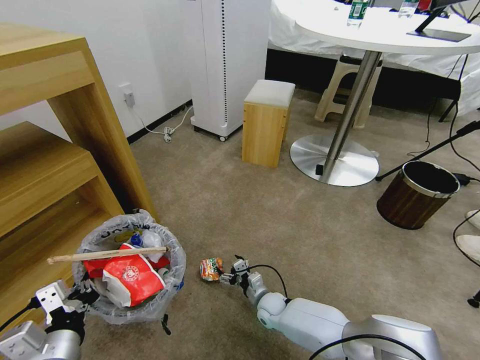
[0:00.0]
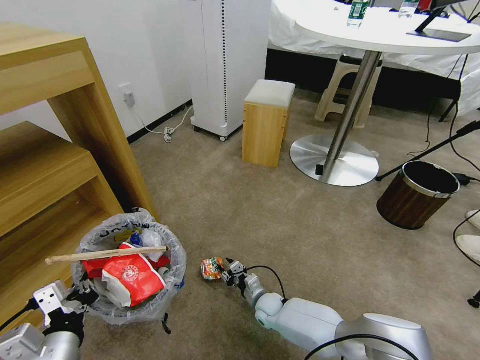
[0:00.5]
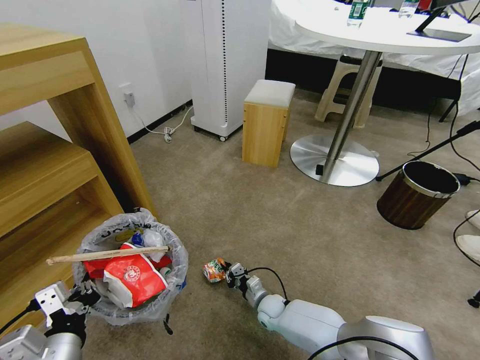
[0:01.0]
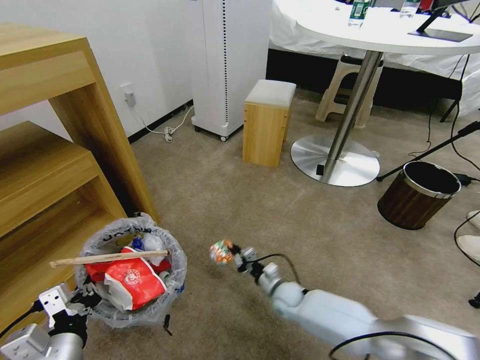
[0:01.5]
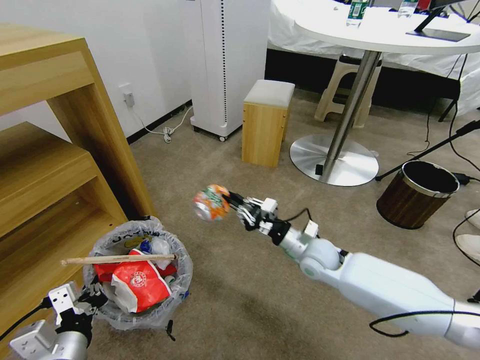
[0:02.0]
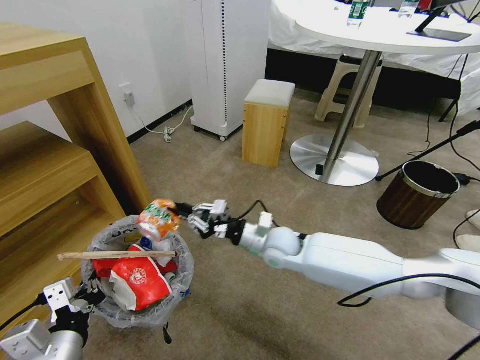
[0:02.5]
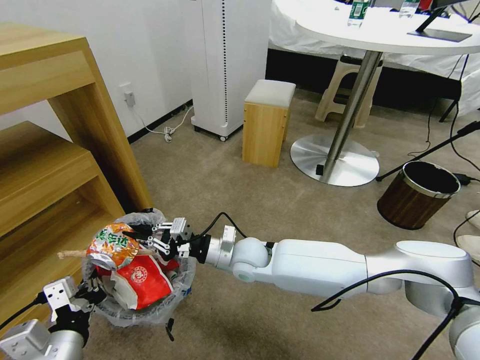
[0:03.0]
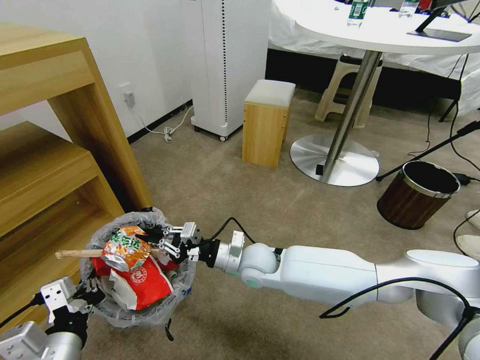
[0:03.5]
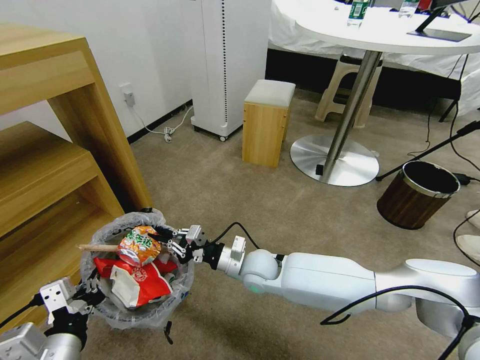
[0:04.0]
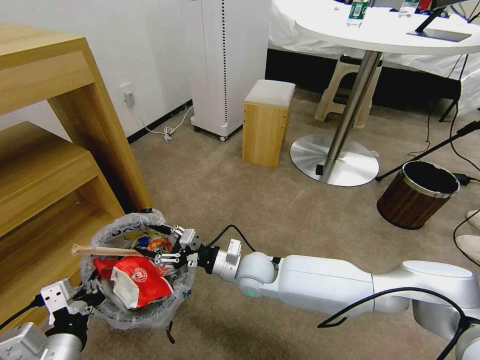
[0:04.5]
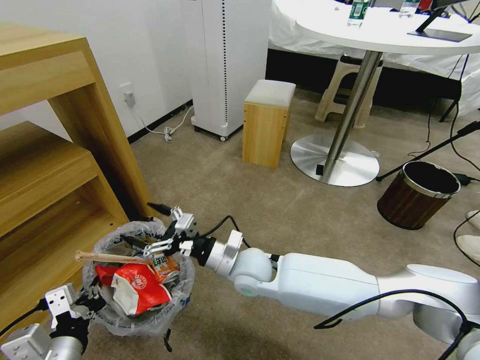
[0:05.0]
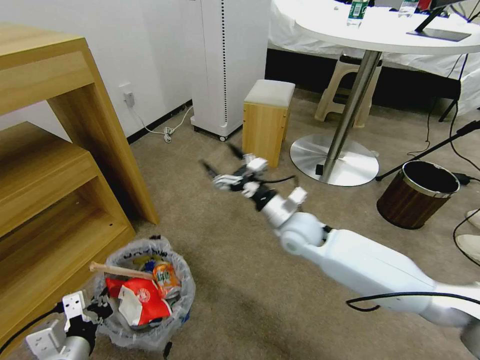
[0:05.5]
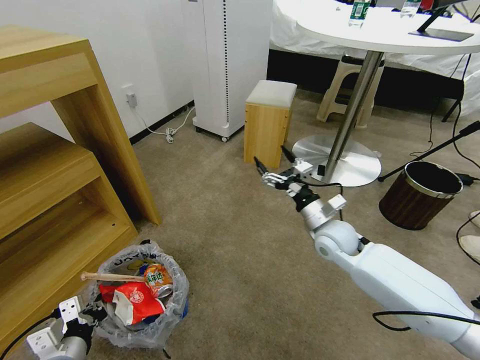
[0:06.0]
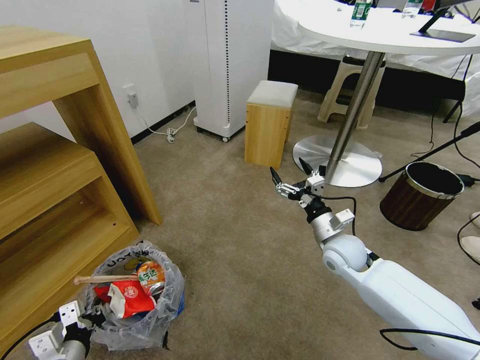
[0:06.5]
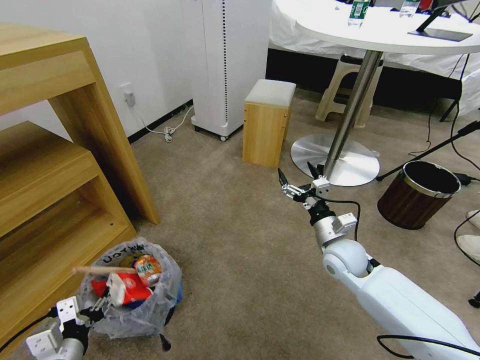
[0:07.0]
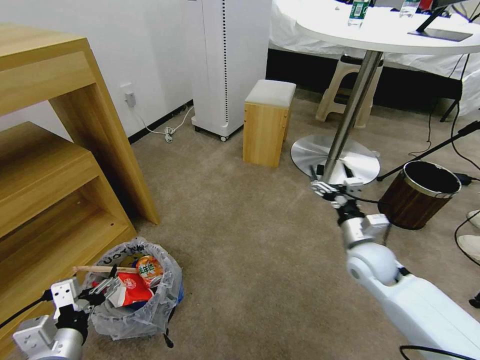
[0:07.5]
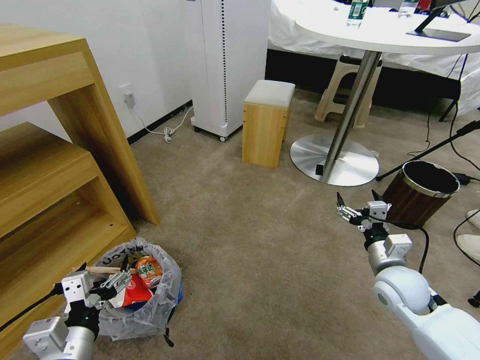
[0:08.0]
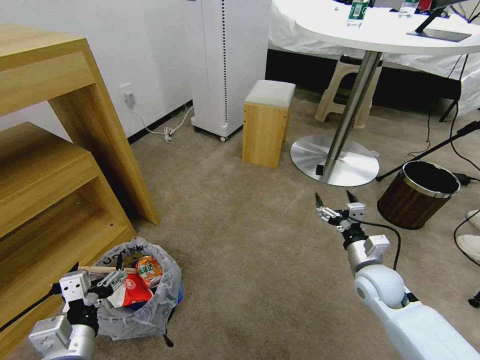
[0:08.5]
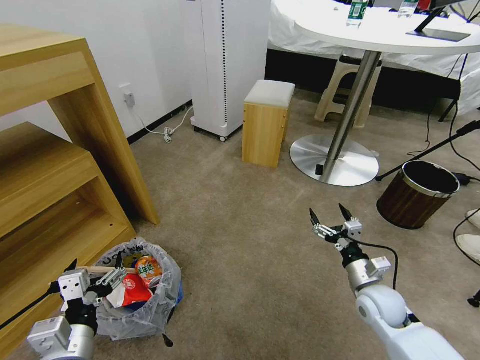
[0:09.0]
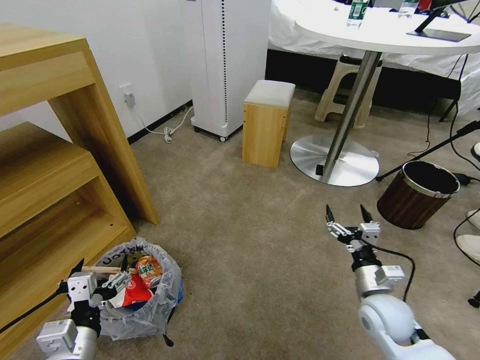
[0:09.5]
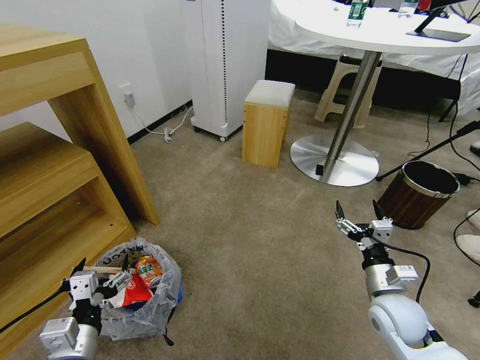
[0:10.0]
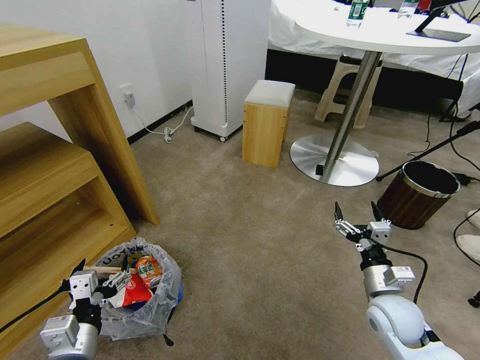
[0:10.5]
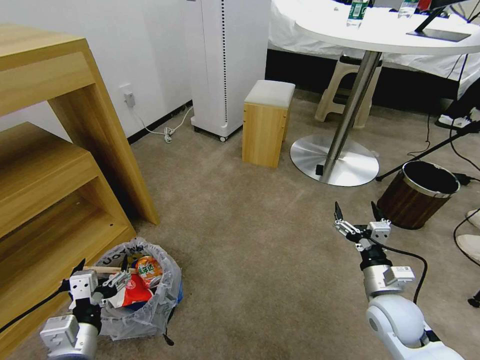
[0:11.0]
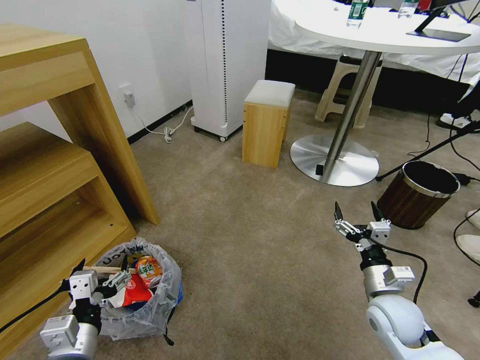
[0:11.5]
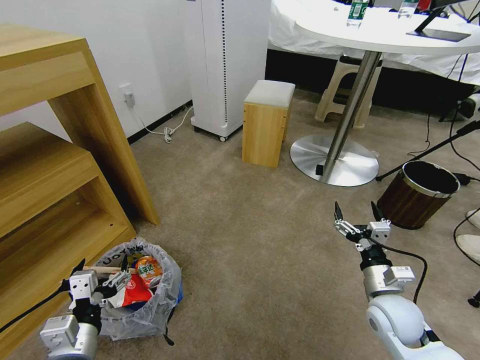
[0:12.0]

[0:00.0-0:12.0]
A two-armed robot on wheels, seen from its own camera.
Task of the whole recording: Pick up the trash bin and place the garbage on the floor into it.
0:00.0 to 0:02.0: The right gripper is displaced upward and to the right by approximately 25 cm, and closes its fingers.
0:02.0 to 0:04.0: The right gripper moves to the left, about 15 cm.
0:04.0 to 0:06.0: The right gripper heads to the right, covering some 20 cm, and opens its fingers. Meanwhile the left gripper is displaced downward and to the left by some 10 cm.
0:06.0 to 0:08.0: The right gripper travels to the right and backward by some 15 cm. Meanwhile the left gripper shifts roughly 10 cm upward and to the right, and opens up.
0:08.0 to 0:10.0: The right gripper changes place by about 5 cm.
0:10.0 to 0:12.0: Both grippers stay about where they are.

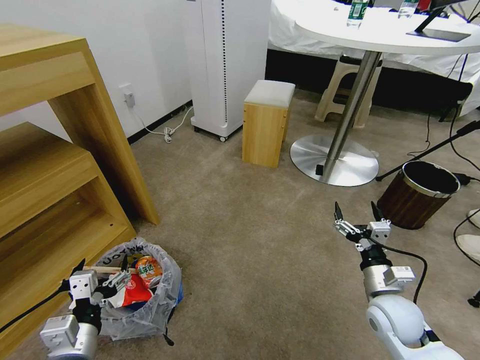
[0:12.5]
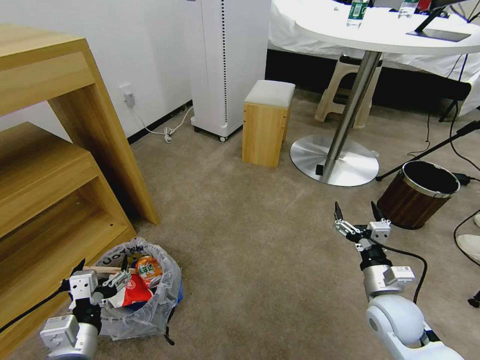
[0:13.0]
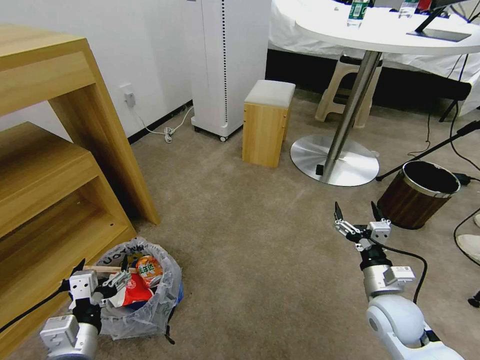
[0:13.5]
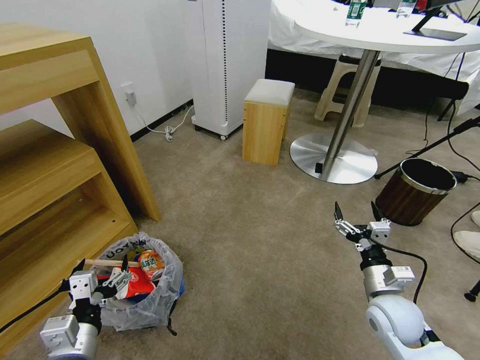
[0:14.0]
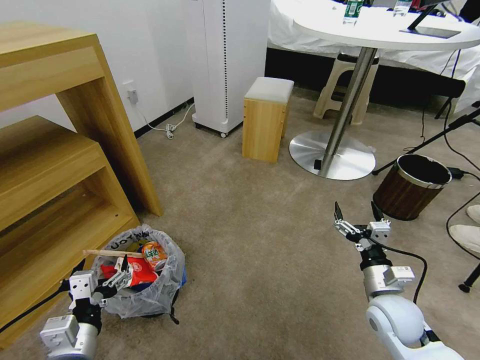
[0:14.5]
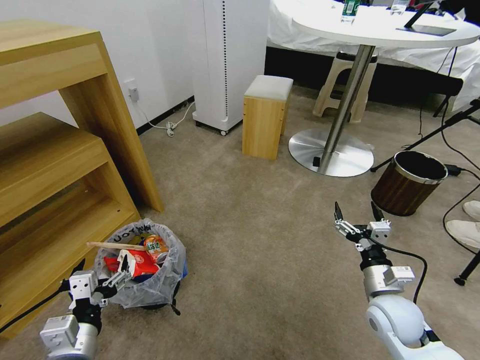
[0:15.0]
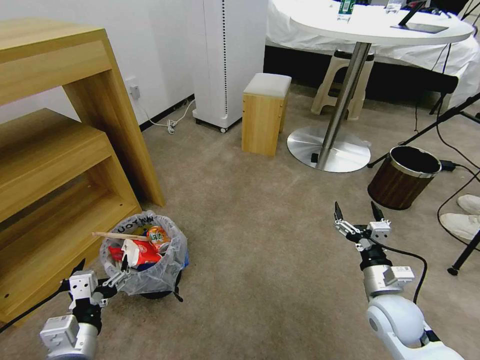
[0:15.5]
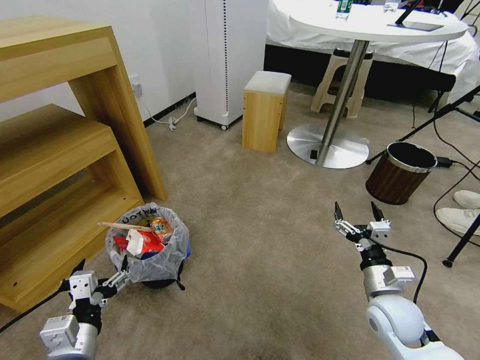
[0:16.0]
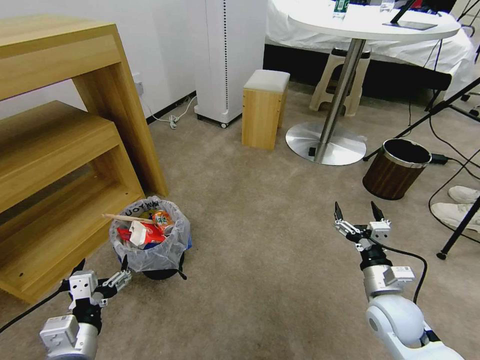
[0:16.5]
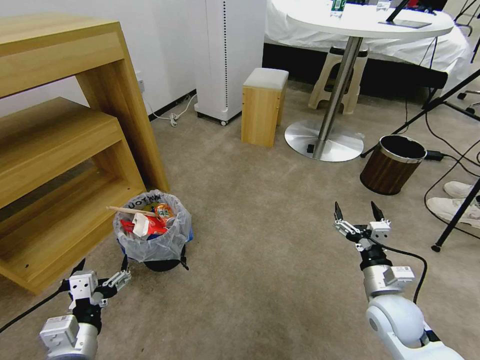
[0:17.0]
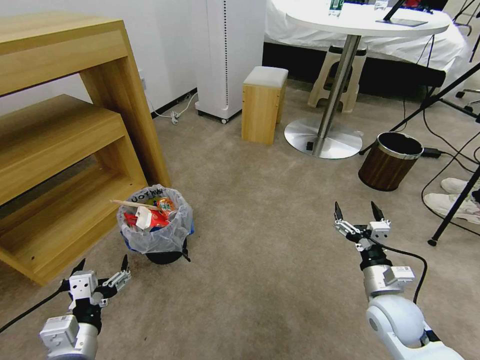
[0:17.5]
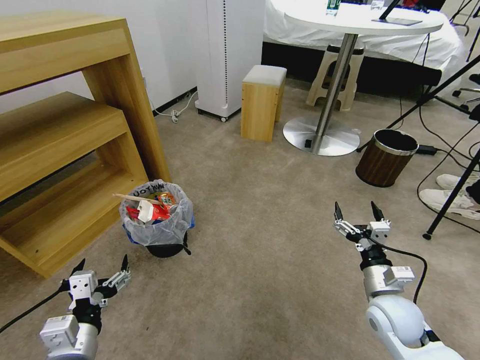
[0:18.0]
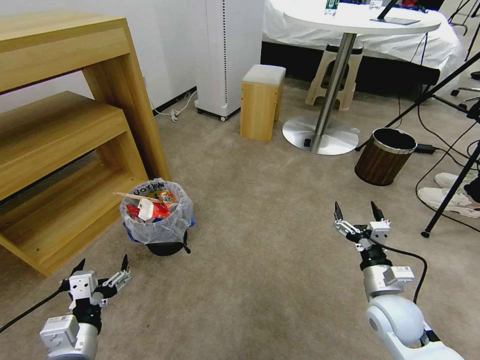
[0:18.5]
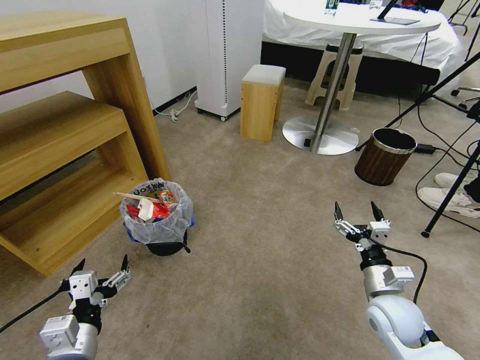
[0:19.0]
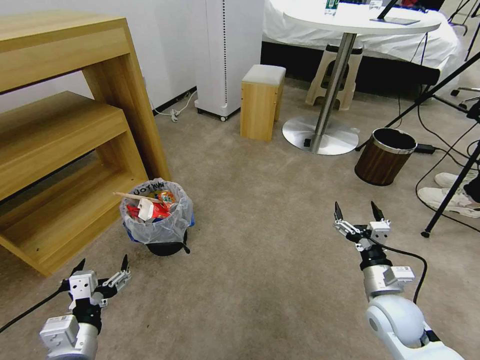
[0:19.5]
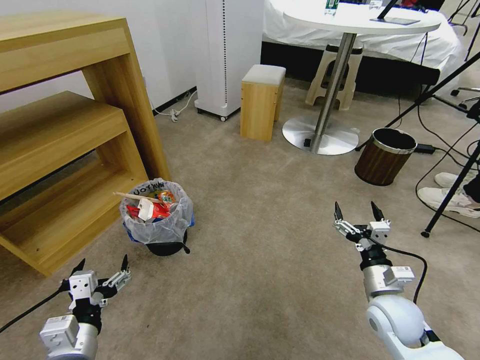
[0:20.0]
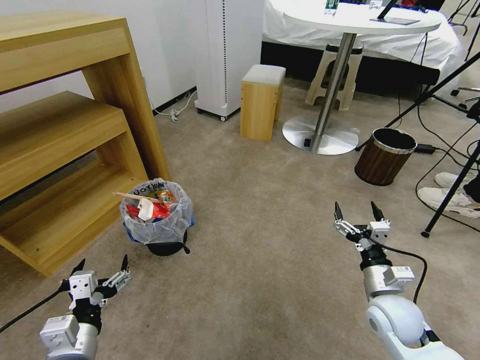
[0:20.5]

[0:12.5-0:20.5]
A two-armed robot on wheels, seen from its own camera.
Task of the whole recording: Pick up the trash bin and place the garbage on the floor into it.
0:12.5 to 0:14.5: The two grippers keep their place.
0:18.5 to 0:20.5: The two grippers keep their place.
